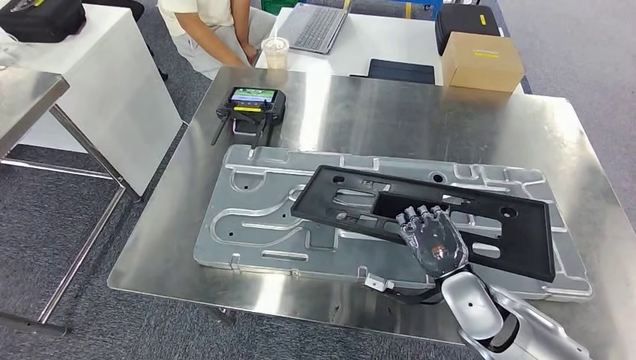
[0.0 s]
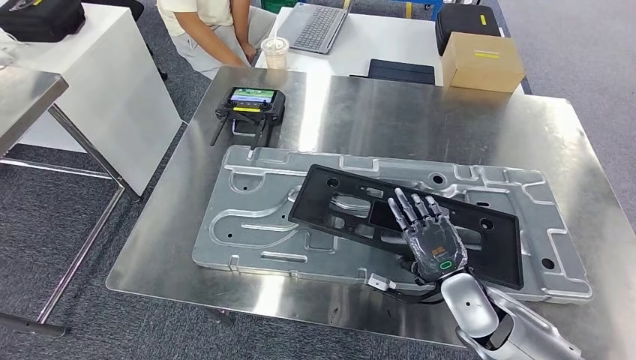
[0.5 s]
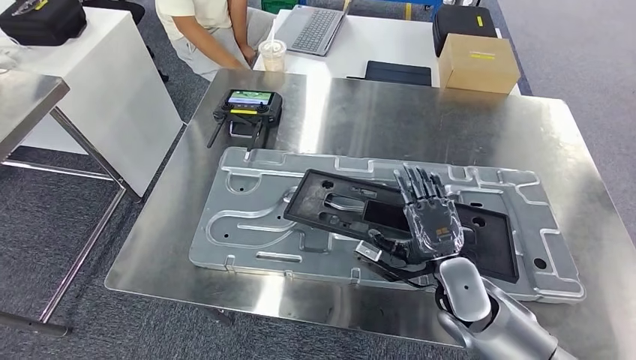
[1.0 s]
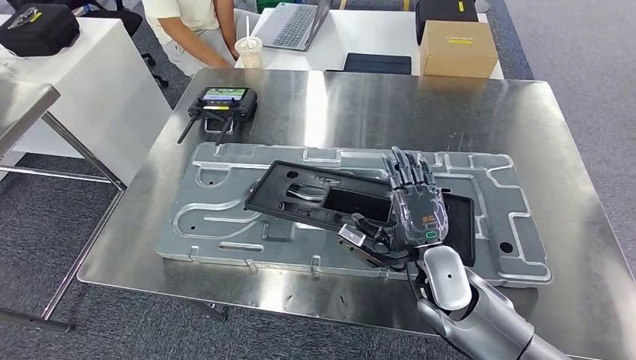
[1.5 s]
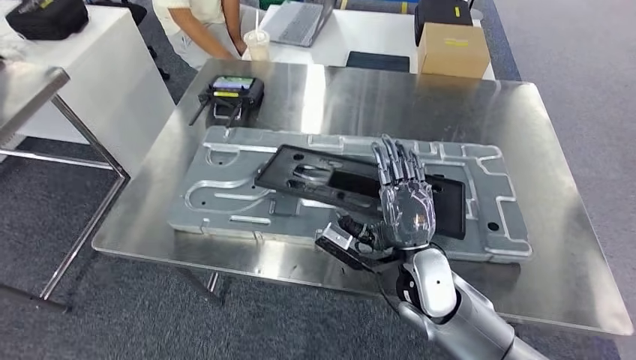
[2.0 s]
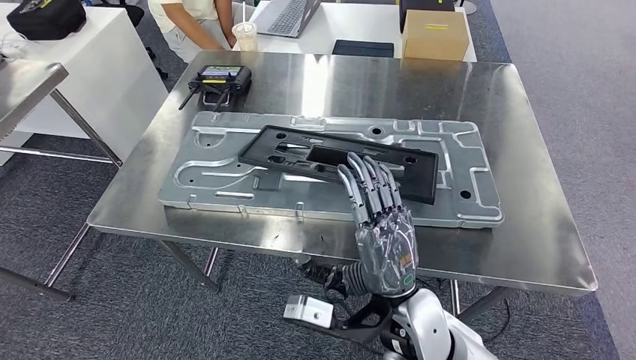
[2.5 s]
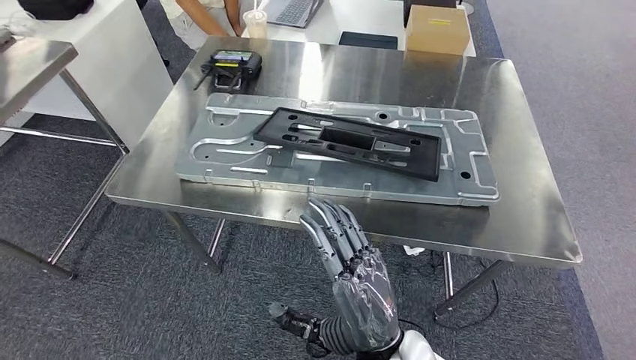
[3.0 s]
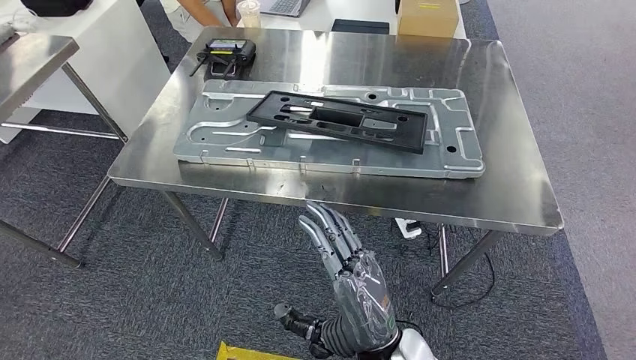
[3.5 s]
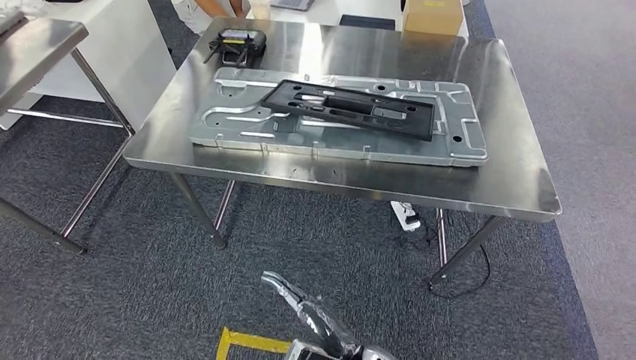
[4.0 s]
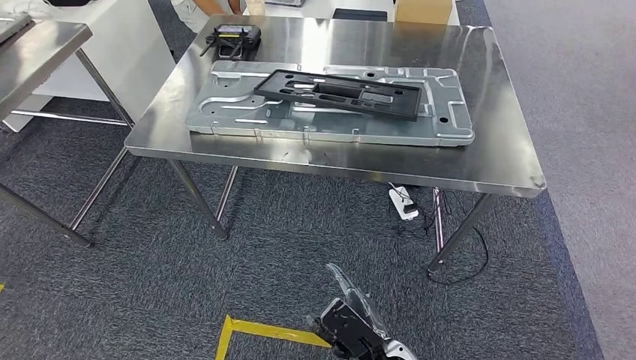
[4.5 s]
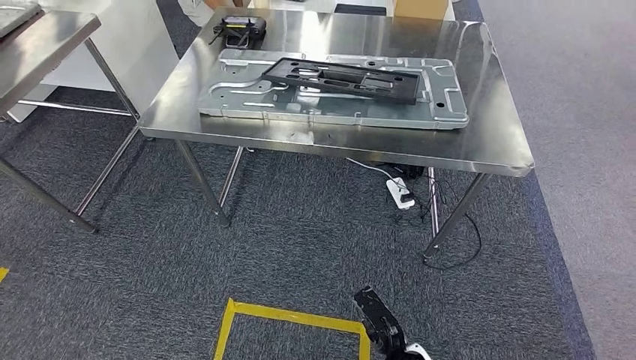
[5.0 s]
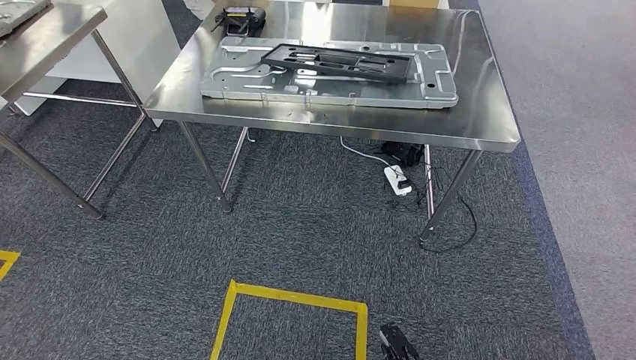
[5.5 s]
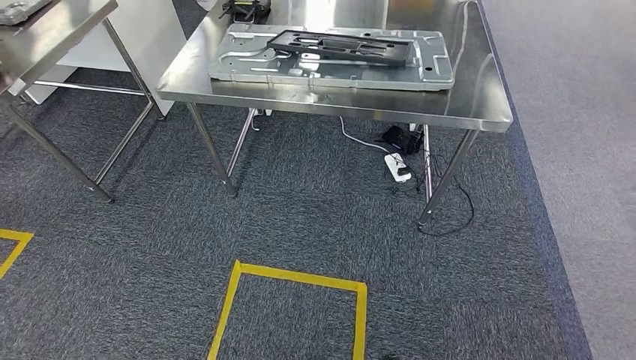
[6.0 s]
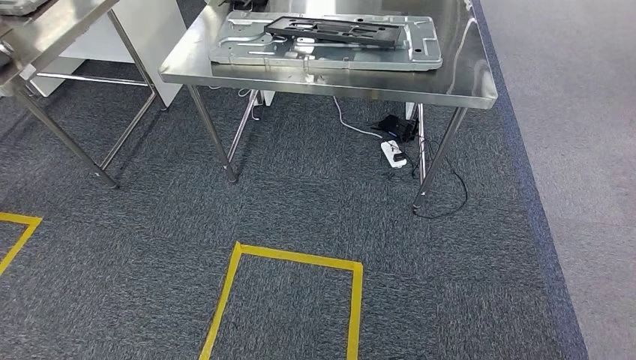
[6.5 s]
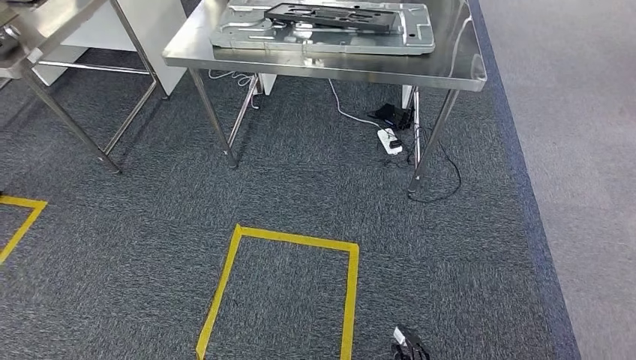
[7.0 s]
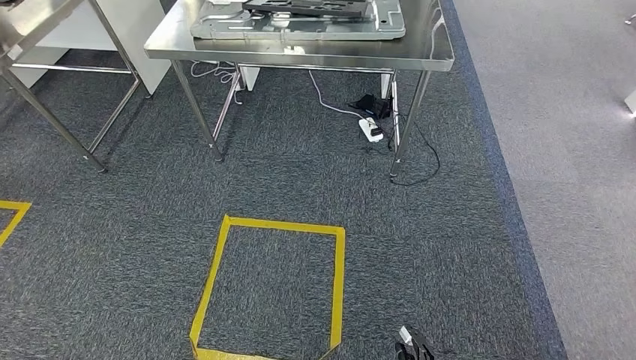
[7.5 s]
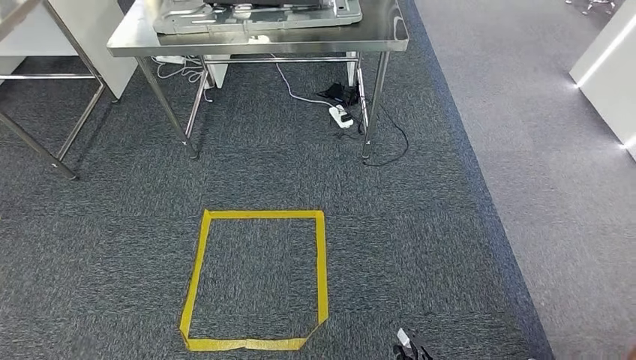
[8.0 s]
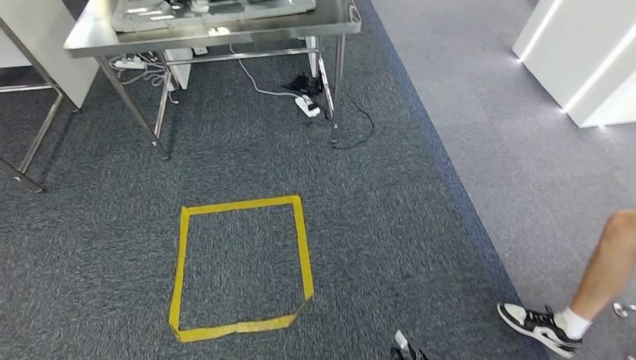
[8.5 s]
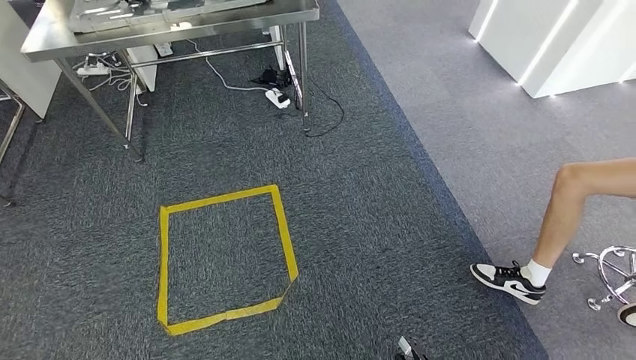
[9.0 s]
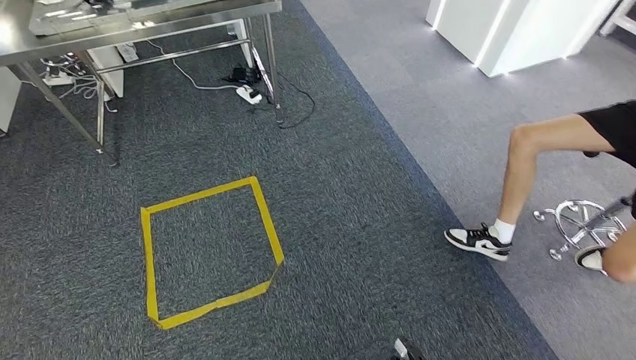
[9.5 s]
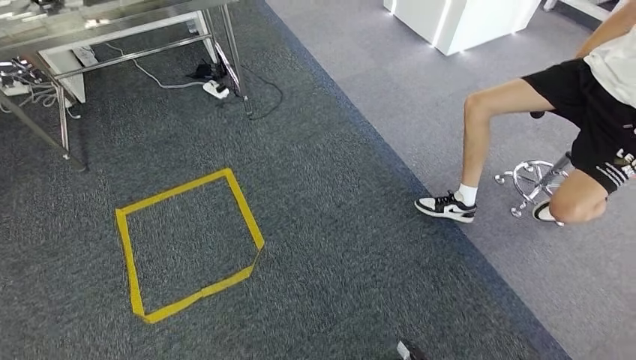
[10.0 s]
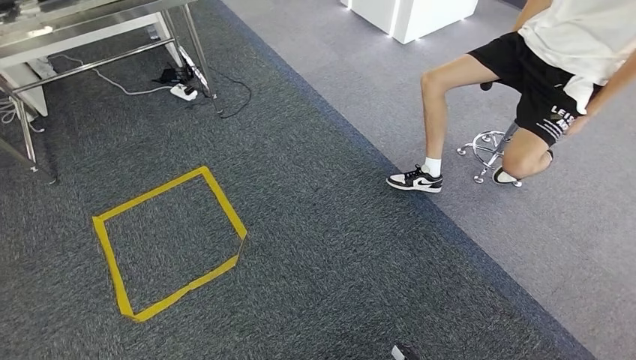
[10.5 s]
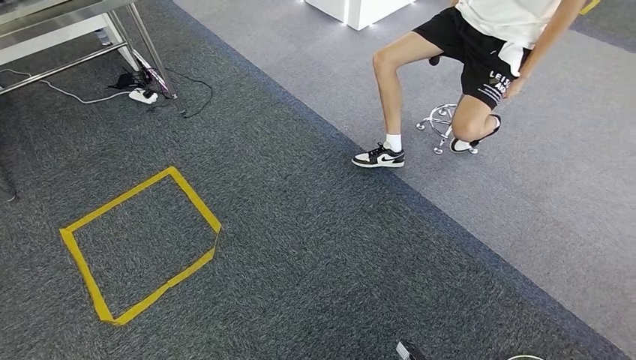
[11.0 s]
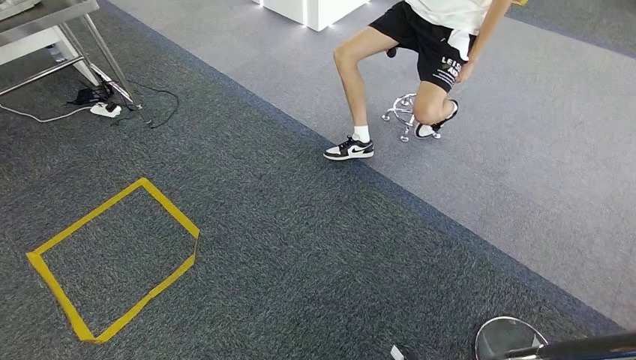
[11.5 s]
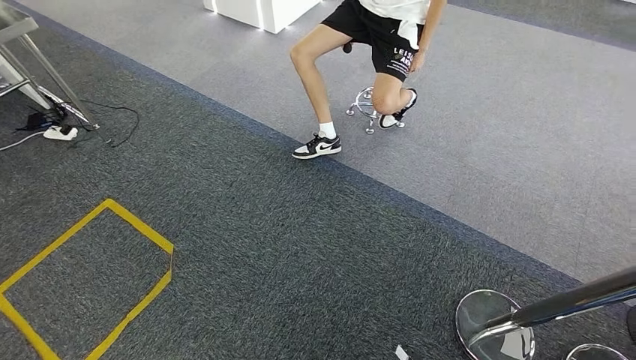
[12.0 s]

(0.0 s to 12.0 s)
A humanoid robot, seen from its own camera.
Step, 0.0 s - 6.0 s: Insert the large material into the corresponding slot on the workbench.

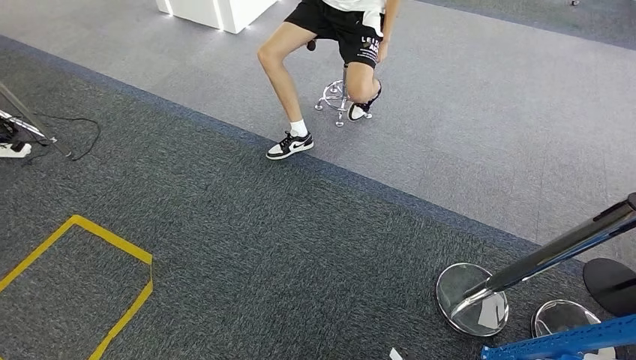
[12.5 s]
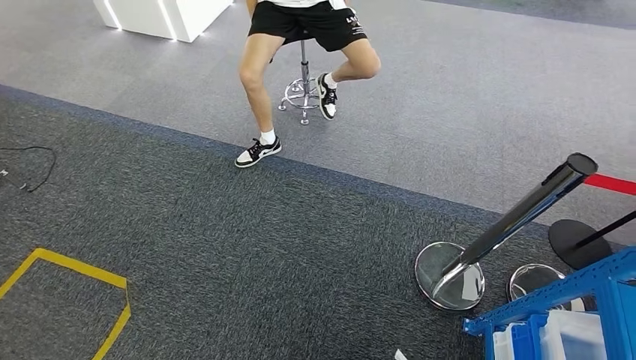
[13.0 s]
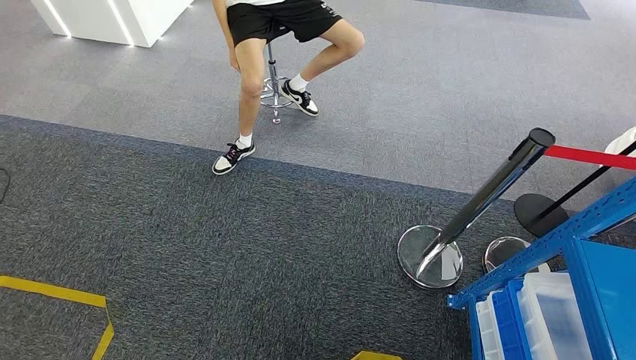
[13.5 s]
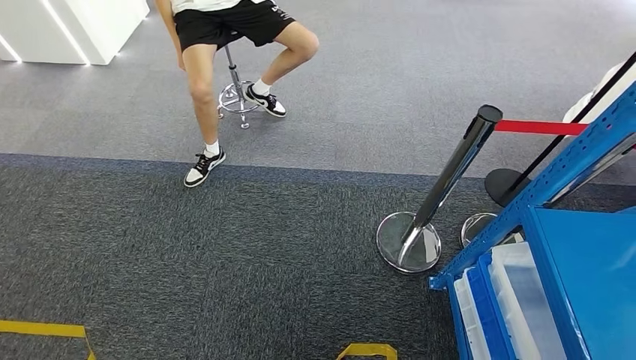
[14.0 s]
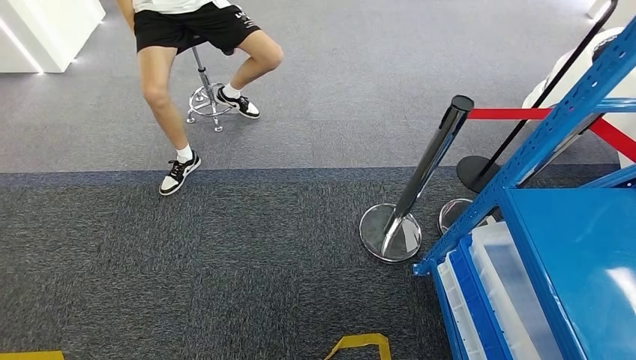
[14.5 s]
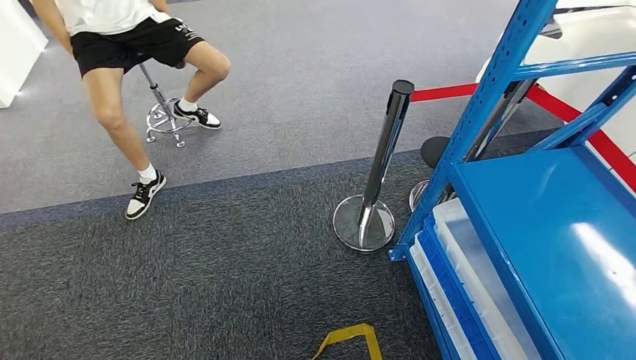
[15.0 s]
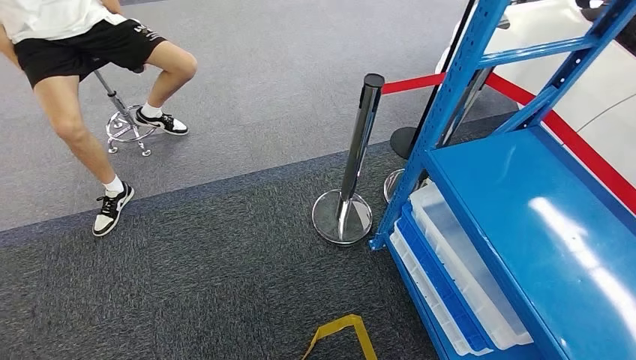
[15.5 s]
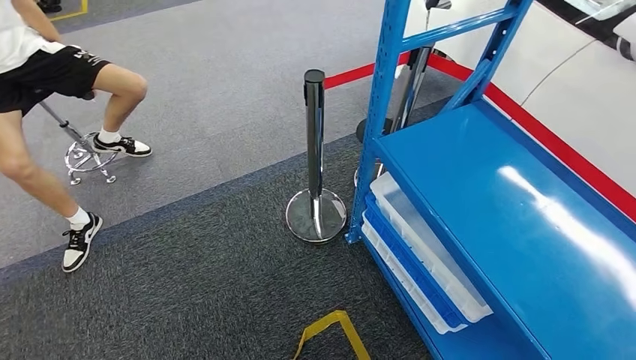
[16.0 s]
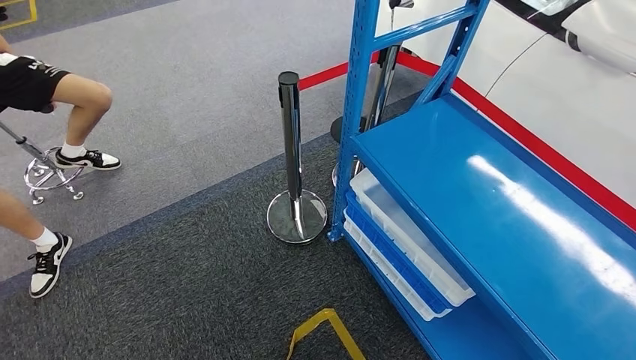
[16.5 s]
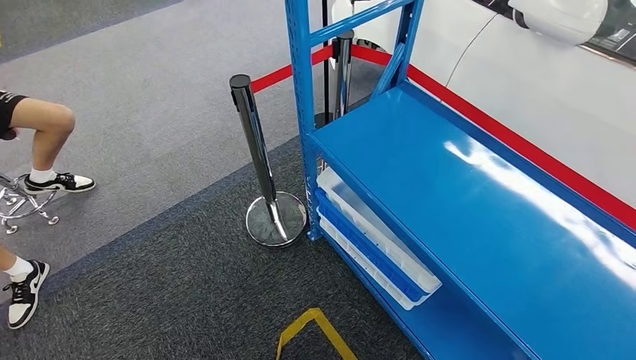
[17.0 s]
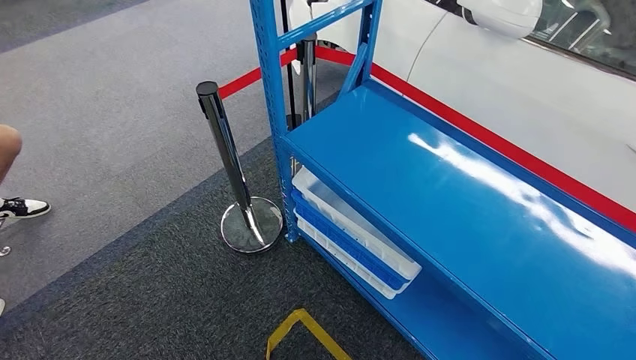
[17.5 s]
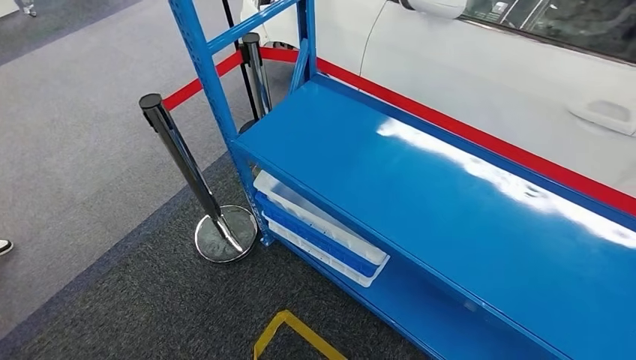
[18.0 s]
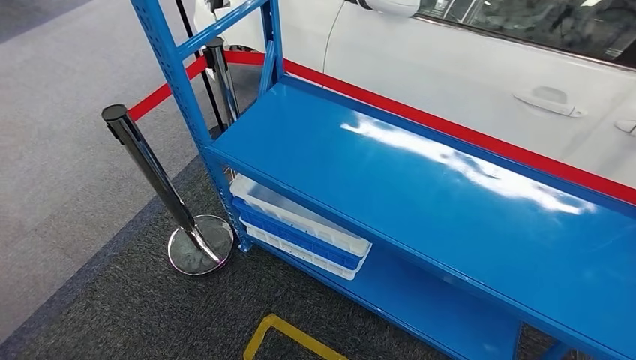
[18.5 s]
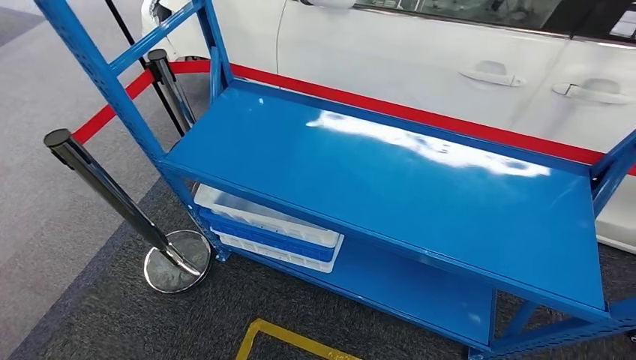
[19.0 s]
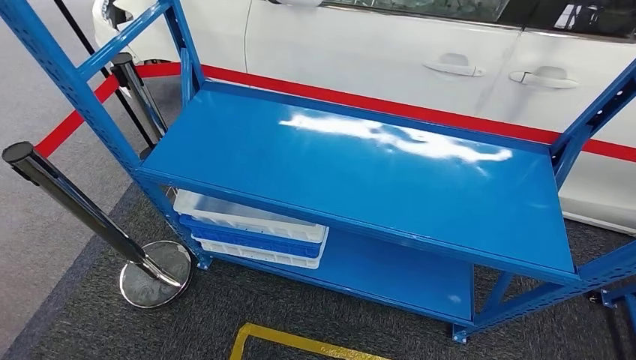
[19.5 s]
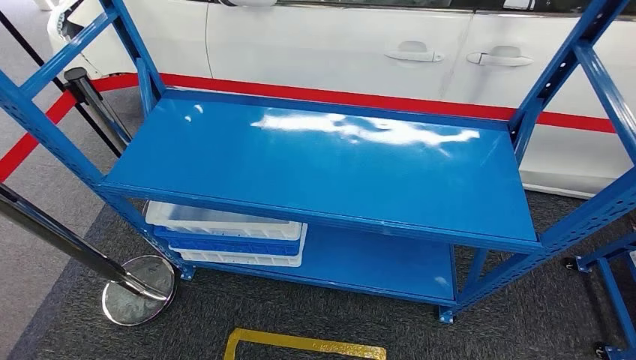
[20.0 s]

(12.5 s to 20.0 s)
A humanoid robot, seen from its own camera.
Step, 12.5 s - 20.0 s: Move to the initial position of the shelf.

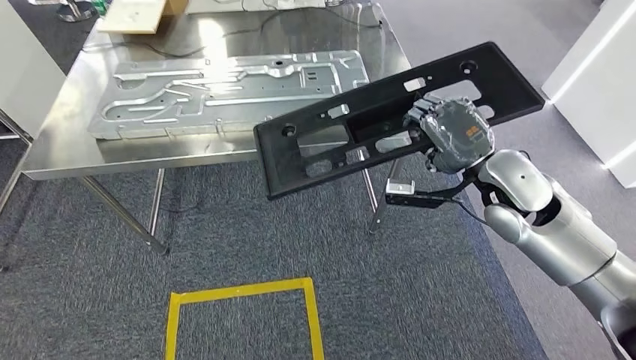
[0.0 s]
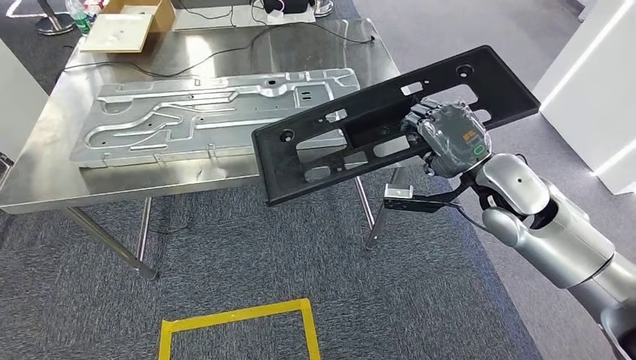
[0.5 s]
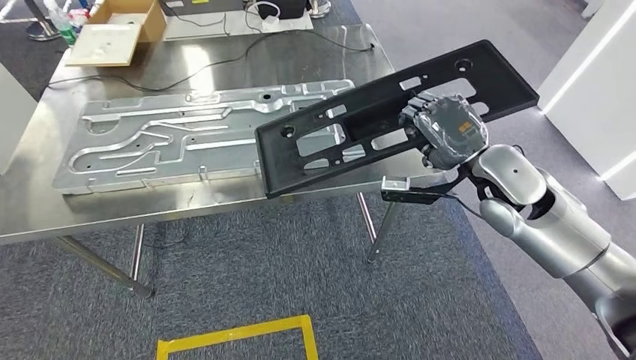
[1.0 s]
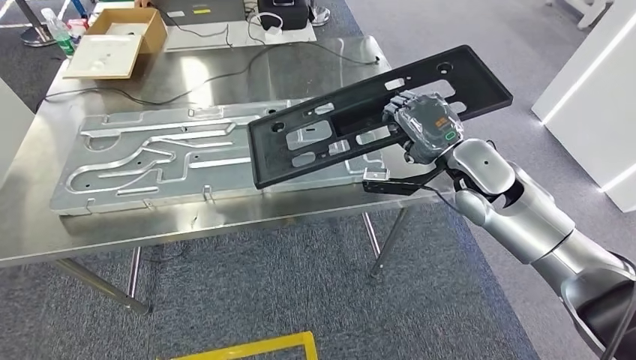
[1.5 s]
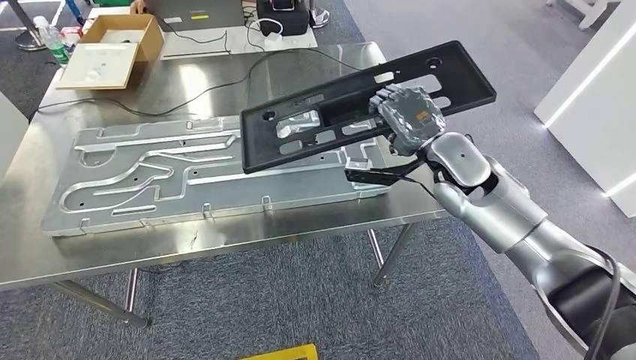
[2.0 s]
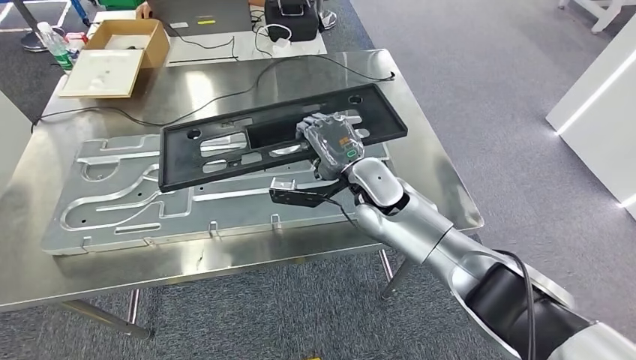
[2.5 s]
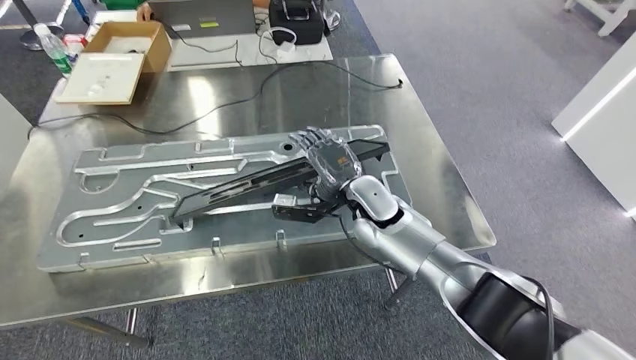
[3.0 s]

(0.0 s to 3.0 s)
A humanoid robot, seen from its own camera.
Step, 0.0 s - 2.0 s: Move the large material to the workbench.
